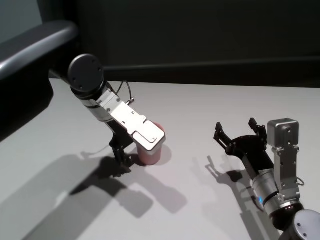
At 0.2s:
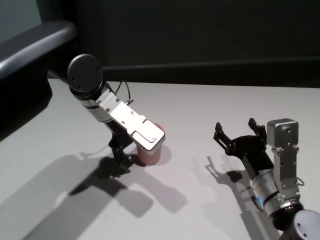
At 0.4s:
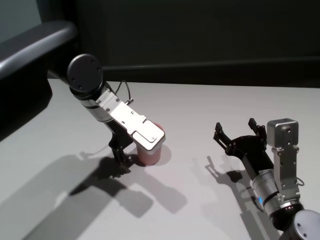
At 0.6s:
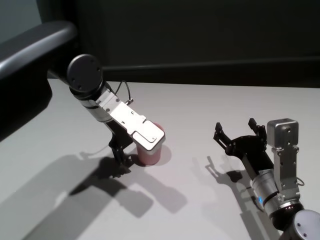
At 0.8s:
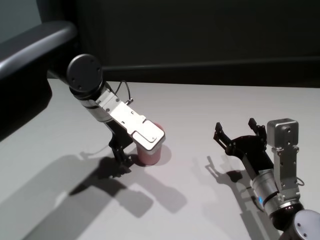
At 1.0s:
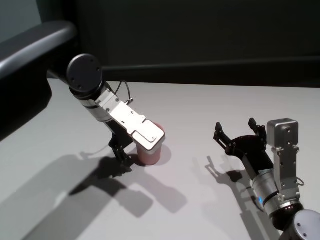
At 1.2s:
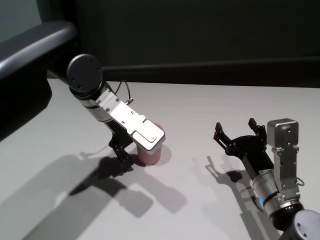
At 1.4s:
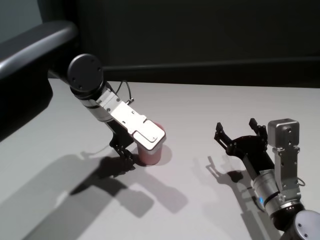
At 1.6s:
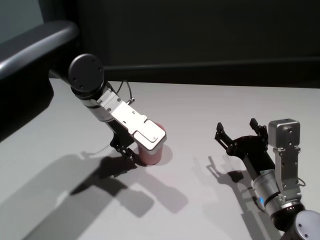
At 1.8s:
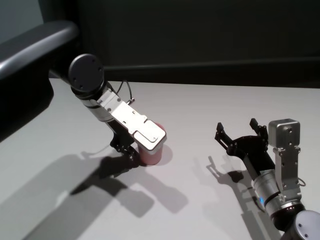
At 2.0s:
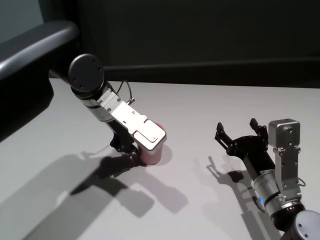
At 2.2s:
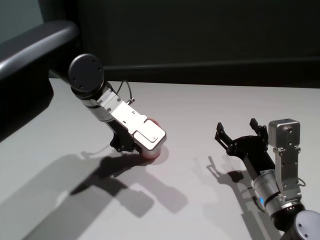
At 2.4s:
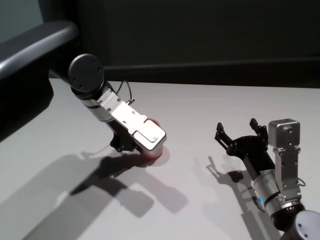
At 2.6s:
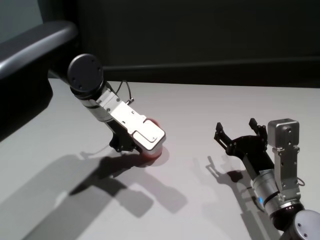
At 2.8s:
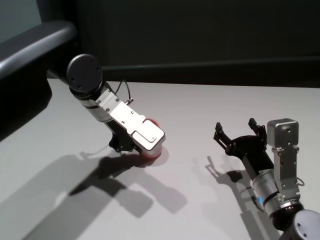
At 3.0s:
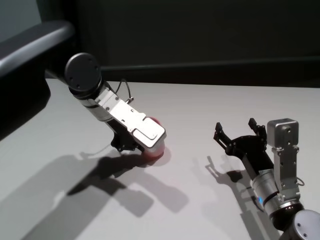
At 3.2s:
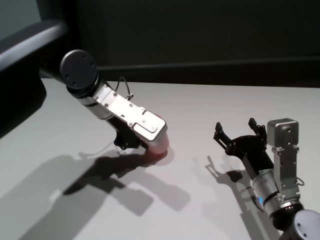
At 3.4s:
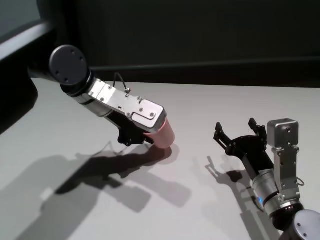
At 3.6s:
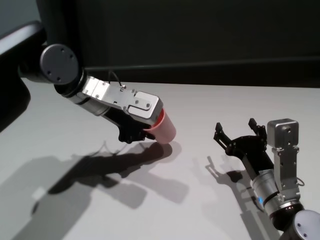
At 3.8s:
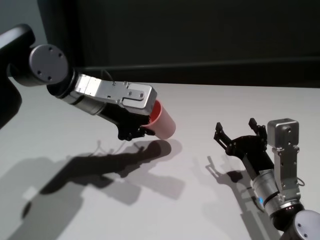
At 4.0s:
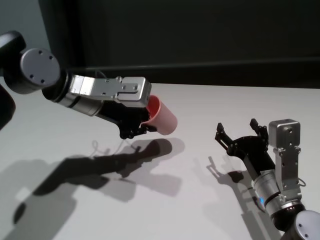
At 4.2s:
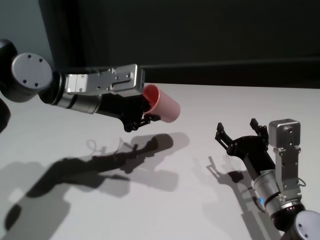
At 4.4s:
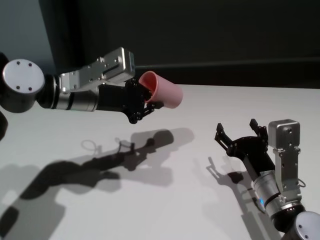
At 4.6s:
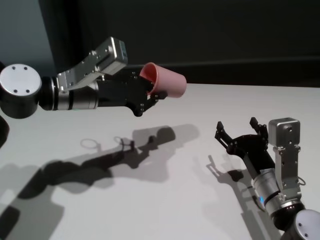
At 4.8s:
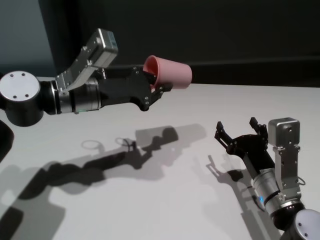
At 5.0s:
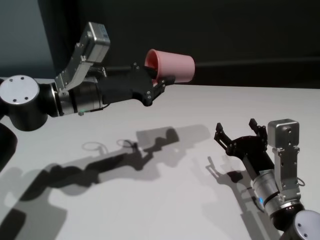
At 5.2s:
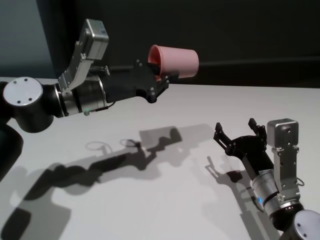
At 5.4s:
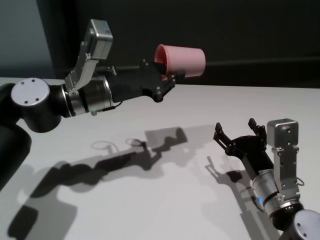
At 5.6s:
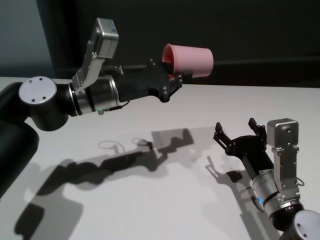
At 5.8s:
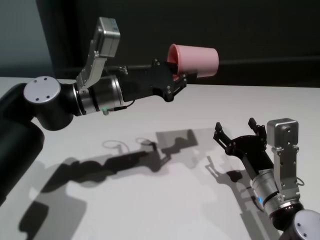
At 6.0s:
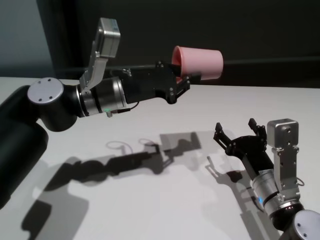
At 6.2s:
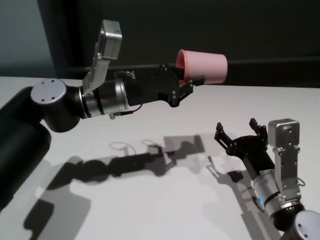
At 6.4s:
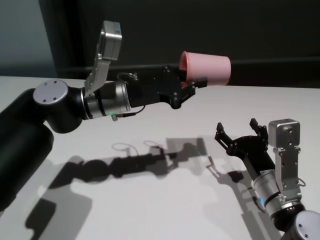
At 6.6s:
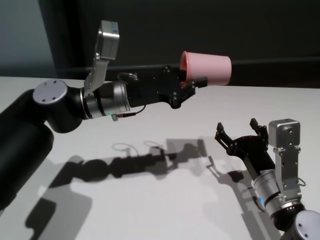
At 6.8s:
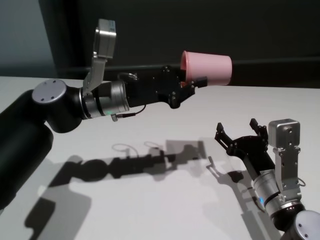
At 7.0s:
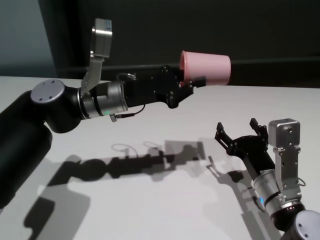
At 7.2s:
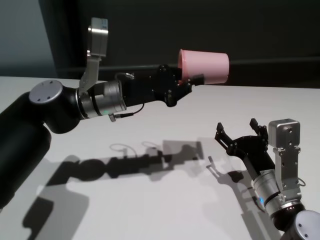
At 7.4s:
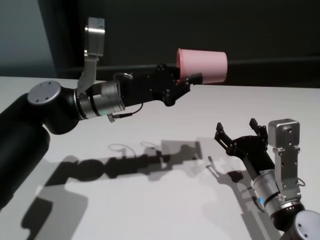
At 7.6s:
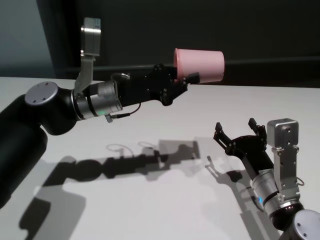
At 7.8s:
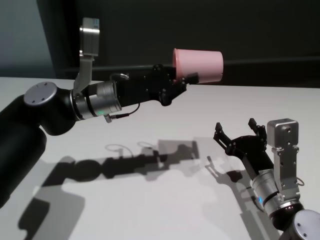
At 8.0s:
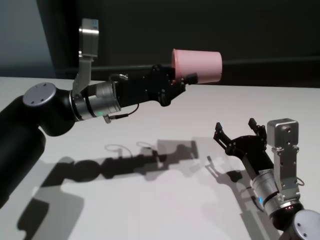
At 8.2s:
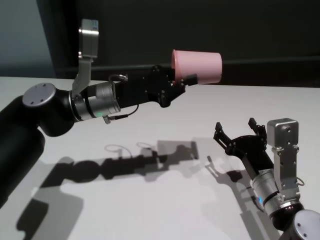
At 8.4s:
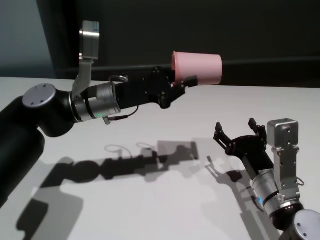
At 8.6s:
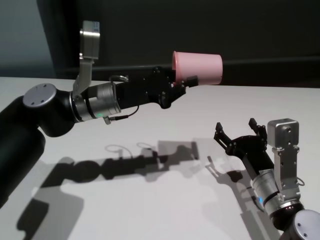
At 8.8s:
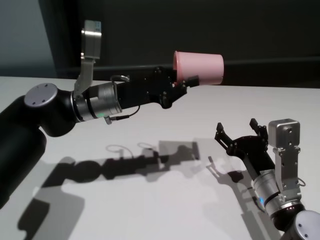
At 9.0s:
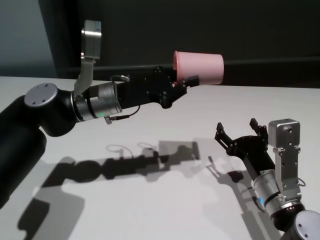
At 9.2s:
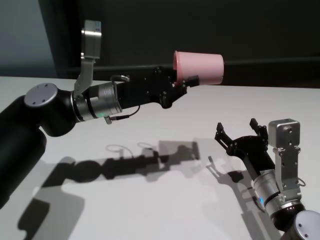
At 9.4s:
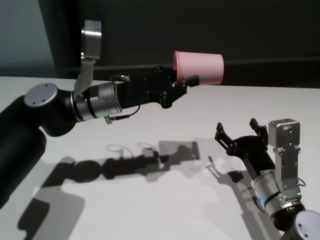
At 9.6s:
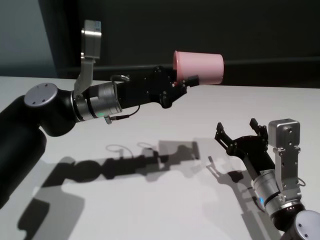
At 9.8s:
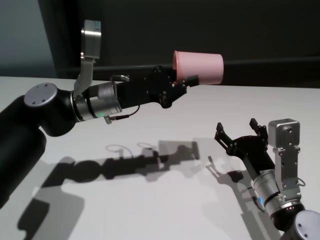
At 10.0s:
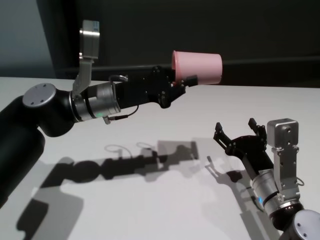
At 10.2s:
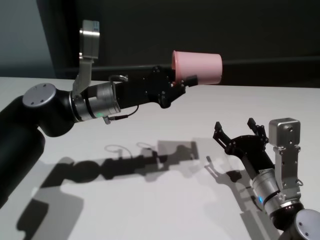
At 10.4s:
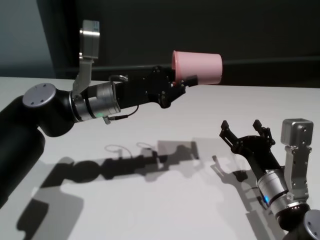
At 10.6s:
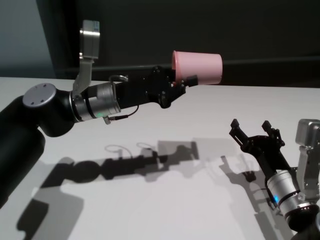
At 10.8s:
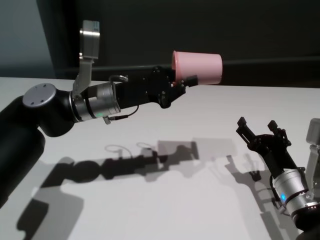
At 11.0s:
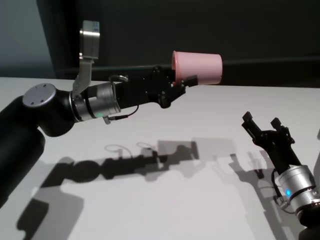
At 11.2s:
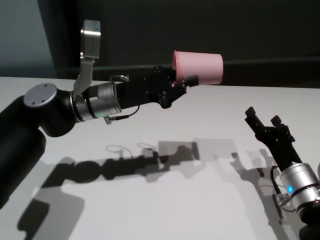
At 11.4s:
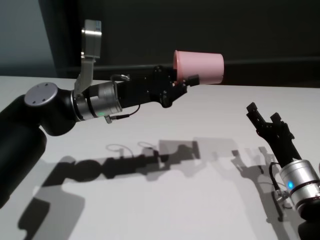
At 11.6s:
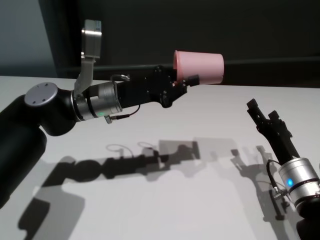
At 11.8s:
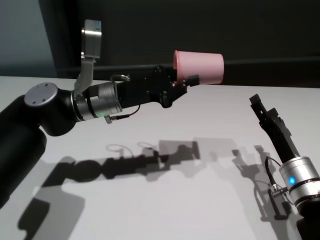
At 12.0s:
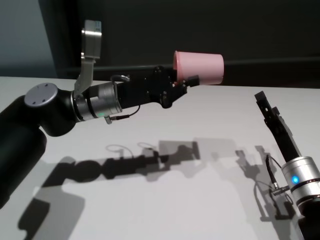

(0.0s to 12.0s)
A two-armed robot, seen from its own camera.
Task of the whole recording: On the white table pick up the cup with one hand and transfer it to the other hand before turning it over.
Step, 0.0s - 2.2s: Grasp the cup with left gripper.

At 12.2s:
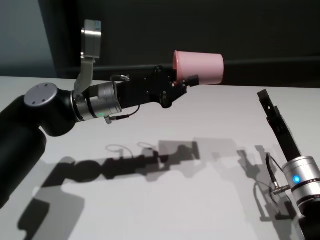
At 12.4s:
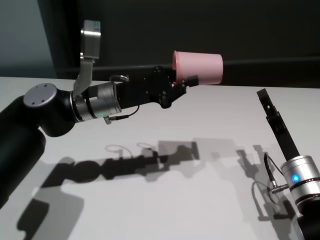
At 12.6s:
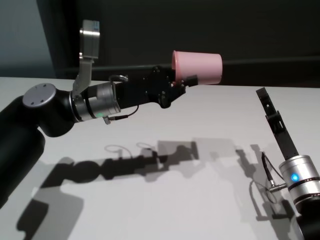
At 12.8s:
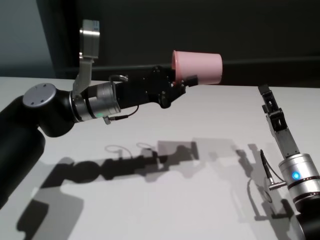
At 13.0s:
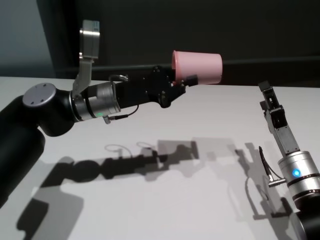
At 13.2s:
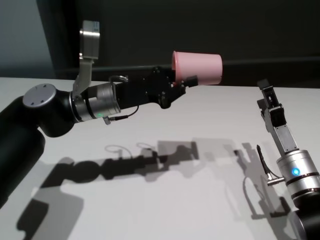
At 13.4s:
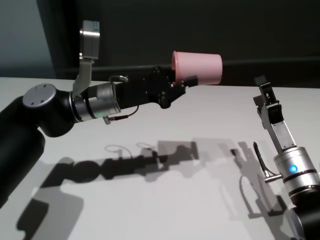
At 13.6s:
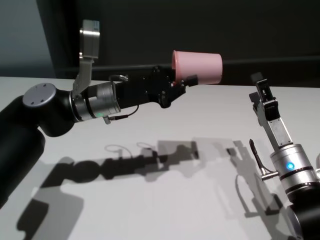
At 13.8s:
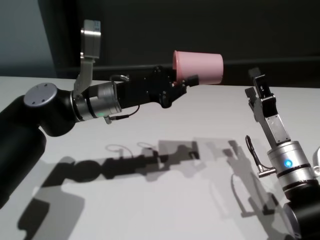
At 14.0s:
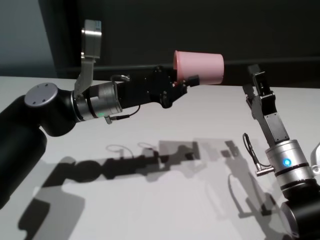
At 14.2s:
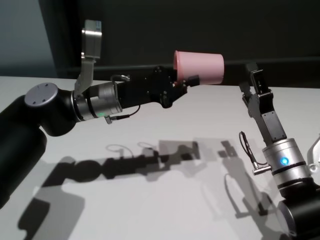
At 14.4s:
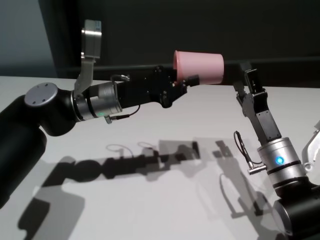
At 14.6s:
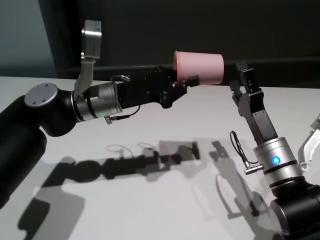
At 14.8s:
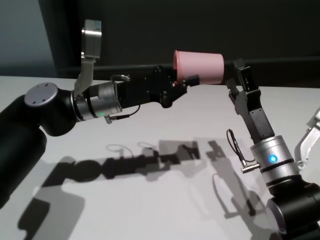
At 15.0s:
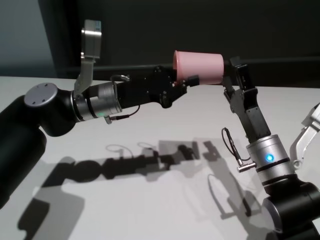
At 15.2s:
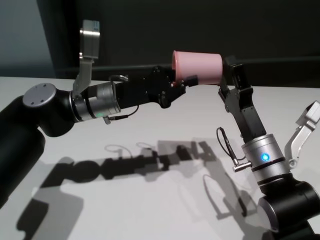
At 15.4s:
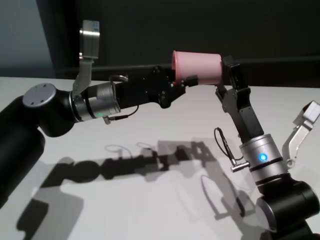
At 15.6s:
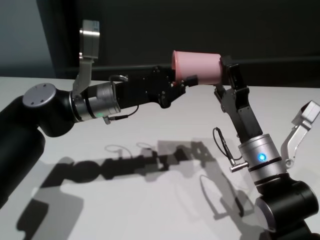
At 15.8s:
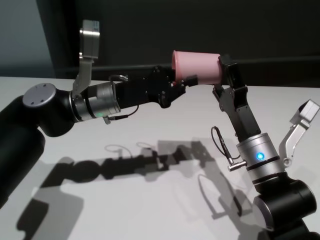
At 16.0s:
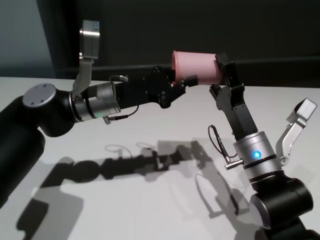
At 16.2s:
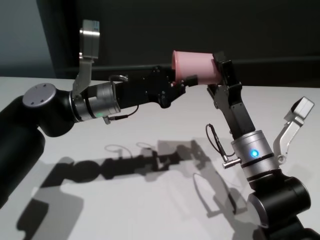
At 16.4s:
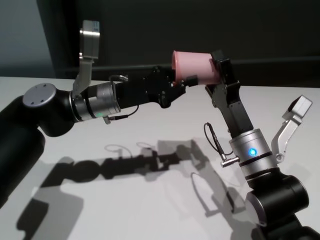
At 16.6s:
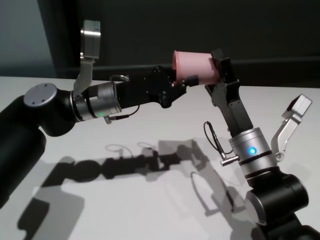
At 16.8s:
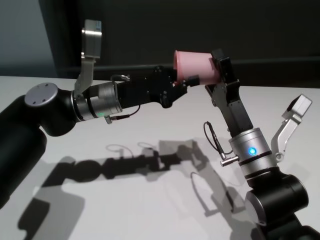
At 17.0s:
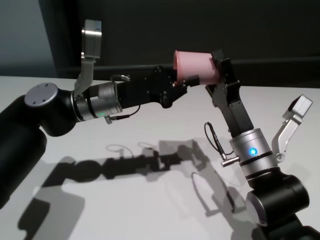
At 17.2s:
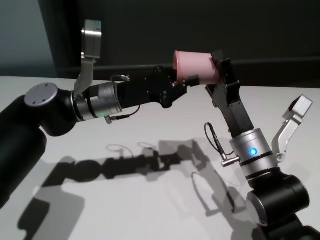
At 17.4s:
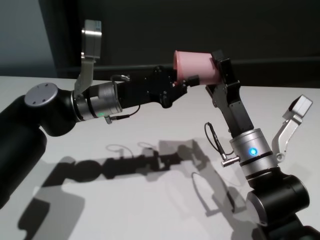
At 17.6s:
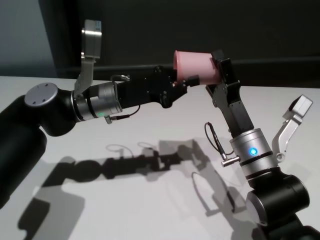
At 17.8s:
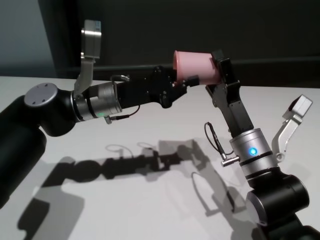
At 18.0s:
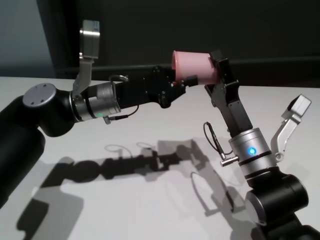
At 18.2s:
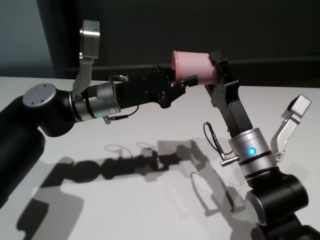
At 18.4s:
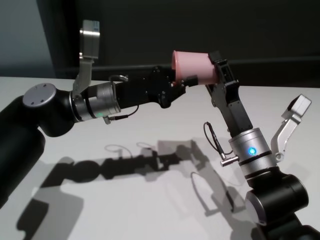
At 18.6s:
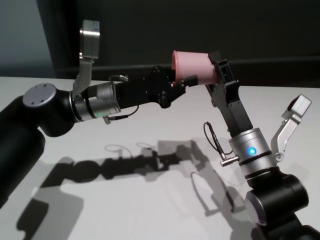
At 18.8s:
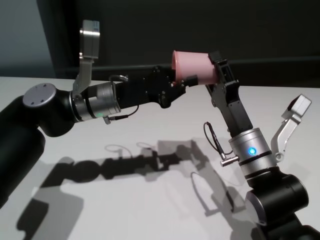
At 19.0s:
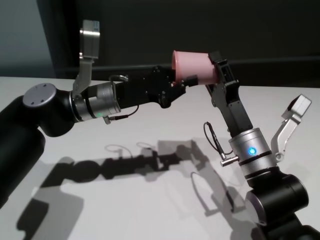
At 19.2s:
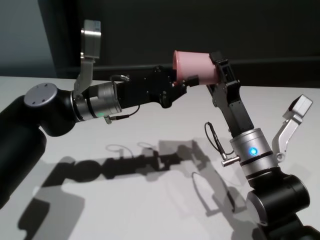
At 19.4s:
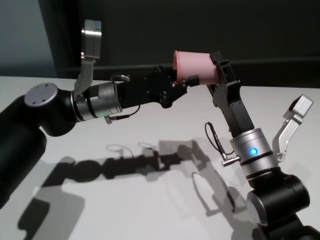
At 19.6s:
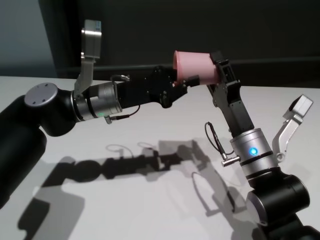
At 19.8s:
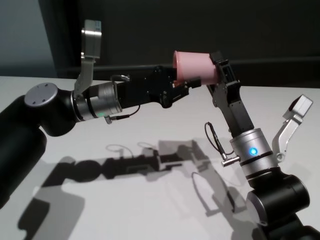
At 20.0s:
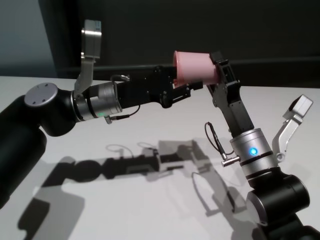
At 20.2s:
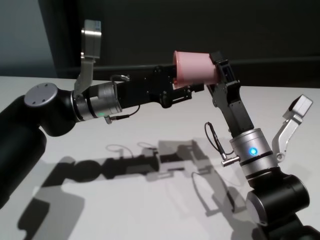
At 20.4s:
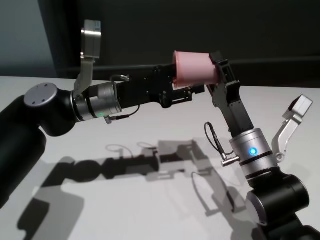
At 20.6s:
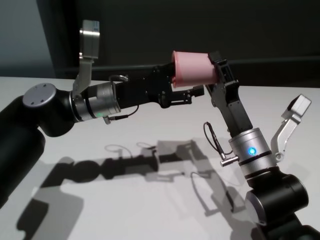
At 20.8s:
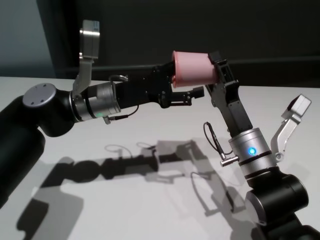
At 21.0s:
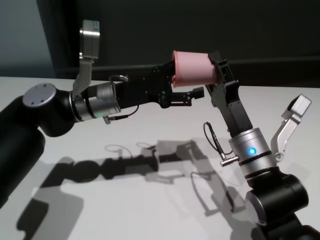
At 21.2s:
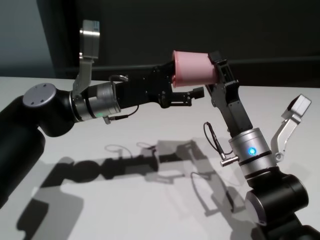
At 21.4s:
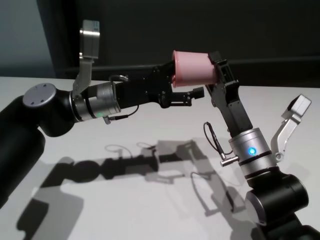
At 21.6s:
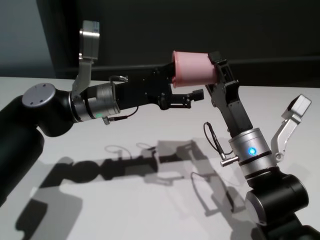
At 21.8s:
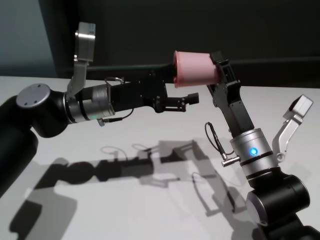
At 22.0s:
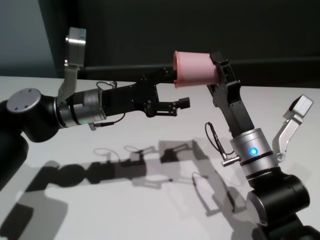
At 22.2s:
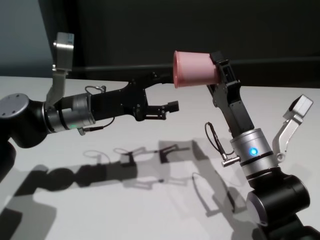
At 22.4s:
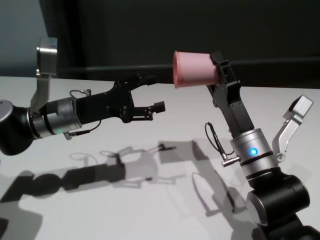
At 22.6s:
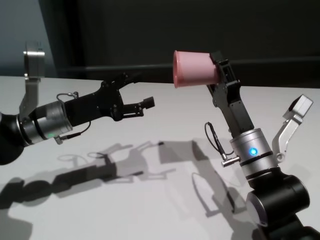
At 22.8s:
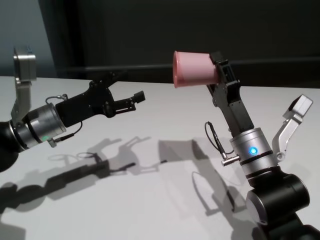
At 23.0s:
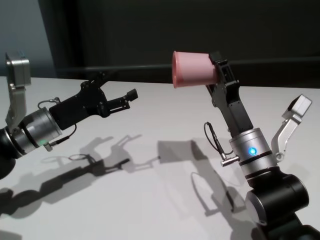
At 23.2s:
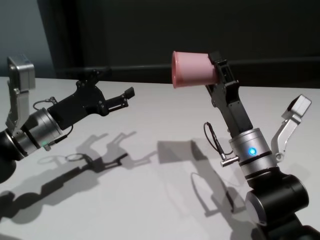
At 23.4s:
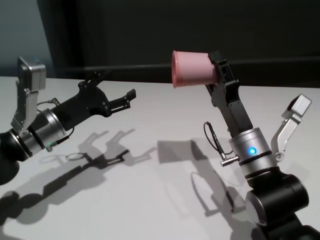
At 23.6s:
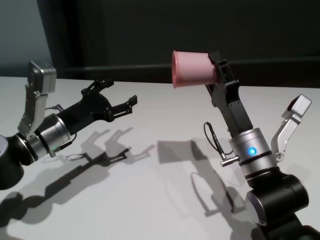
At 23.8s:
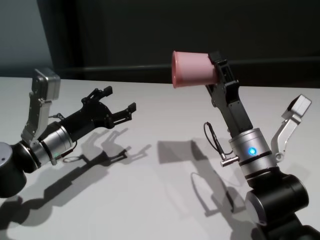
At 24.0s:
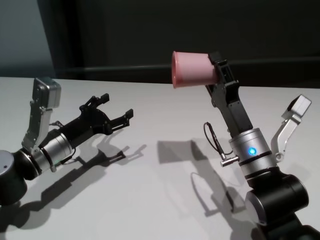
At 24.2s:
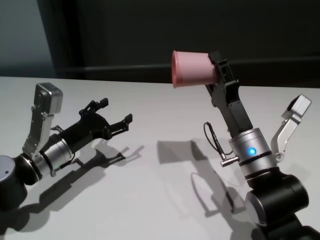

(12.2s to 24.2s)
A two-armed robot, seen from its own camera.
Task of the whole recording: On the white table pick up the cup with one hand and transfer it to the other hand before turning it over.
Step, 12.2s - 22.0s: Pass the cup to the right gripper.
